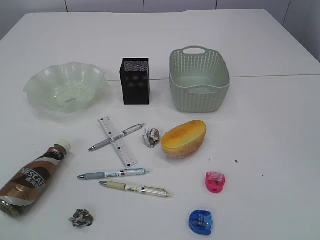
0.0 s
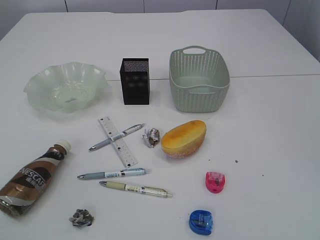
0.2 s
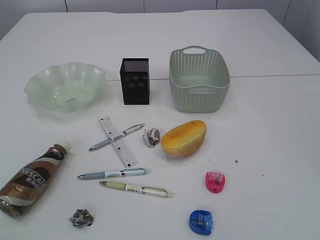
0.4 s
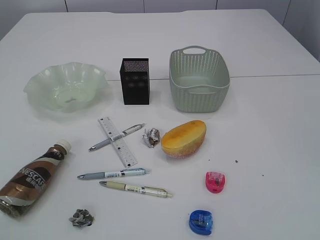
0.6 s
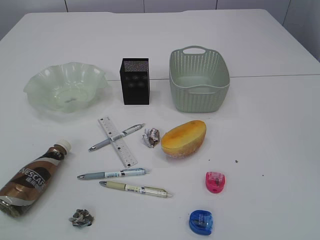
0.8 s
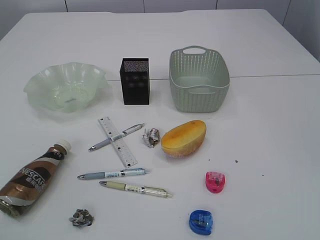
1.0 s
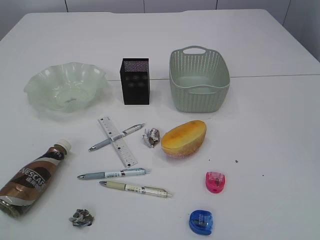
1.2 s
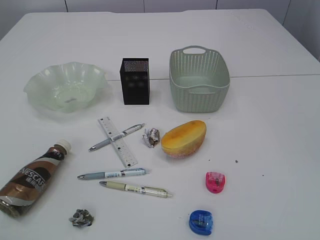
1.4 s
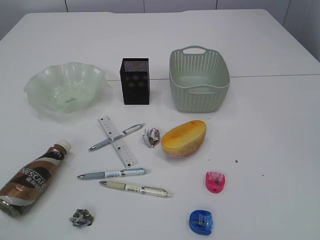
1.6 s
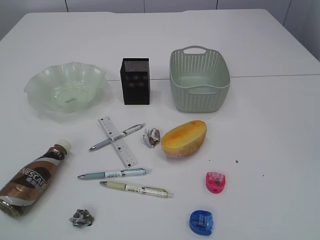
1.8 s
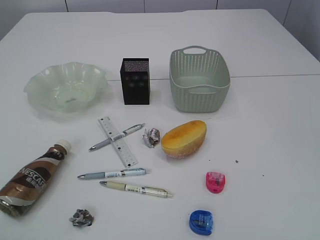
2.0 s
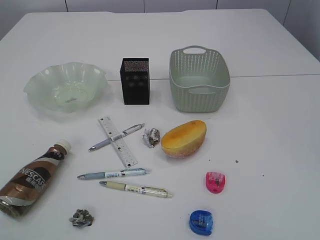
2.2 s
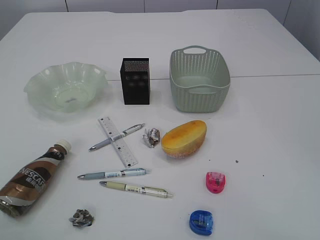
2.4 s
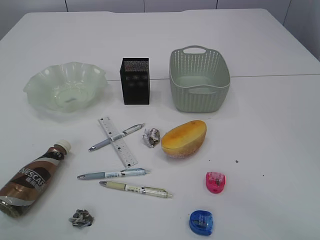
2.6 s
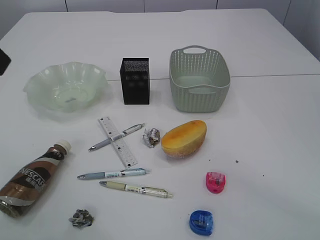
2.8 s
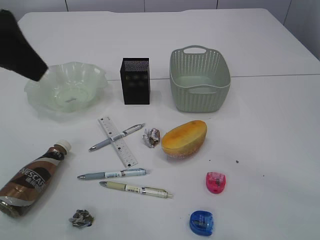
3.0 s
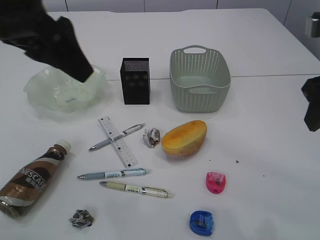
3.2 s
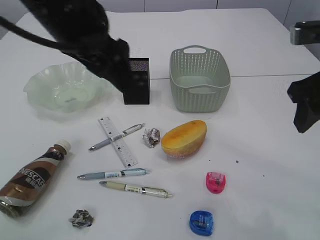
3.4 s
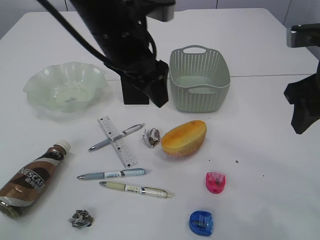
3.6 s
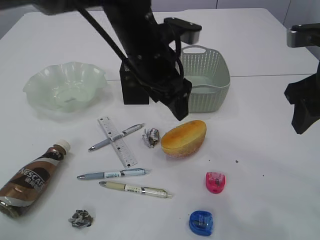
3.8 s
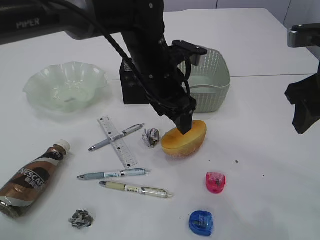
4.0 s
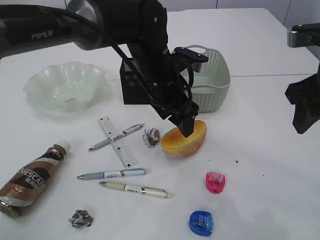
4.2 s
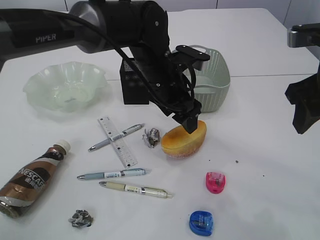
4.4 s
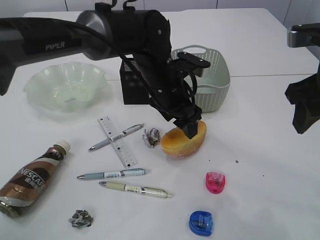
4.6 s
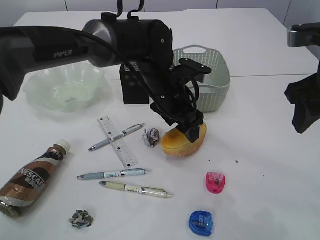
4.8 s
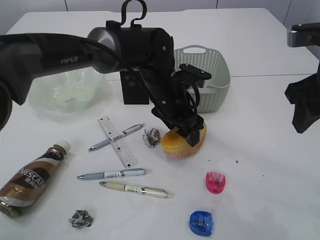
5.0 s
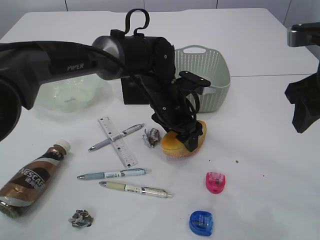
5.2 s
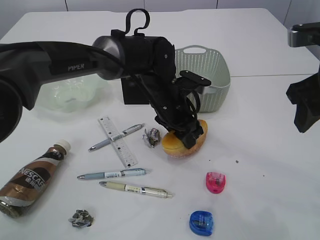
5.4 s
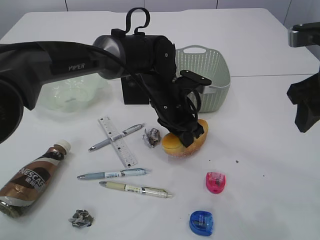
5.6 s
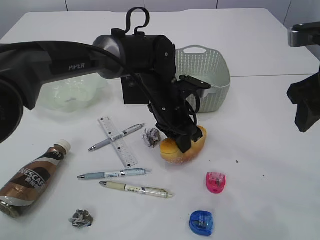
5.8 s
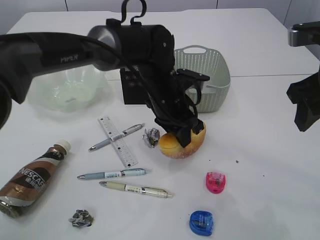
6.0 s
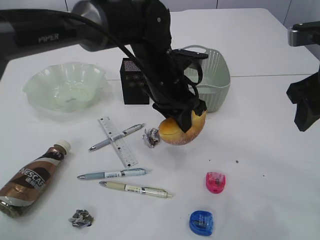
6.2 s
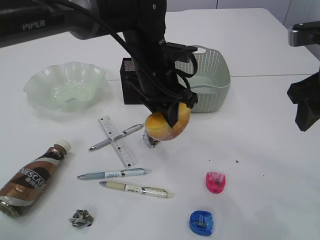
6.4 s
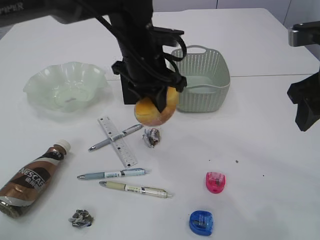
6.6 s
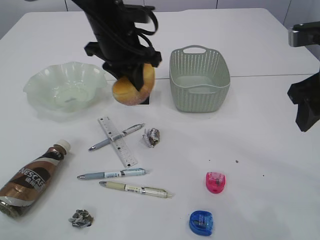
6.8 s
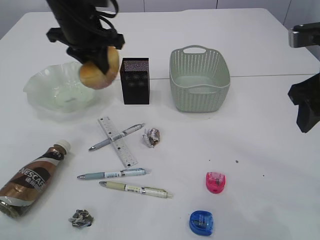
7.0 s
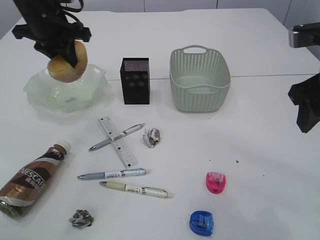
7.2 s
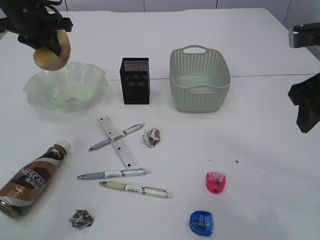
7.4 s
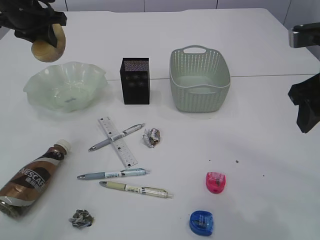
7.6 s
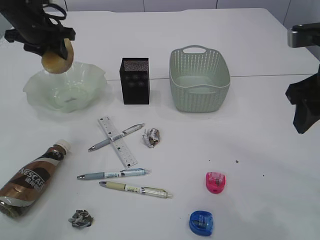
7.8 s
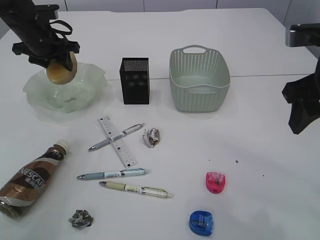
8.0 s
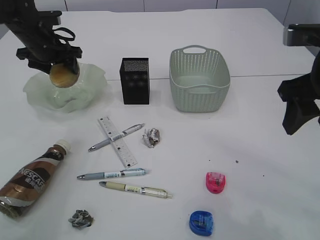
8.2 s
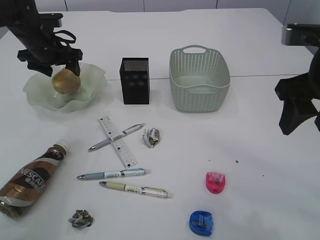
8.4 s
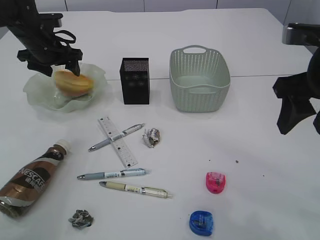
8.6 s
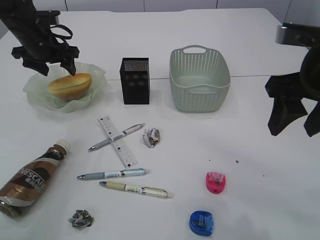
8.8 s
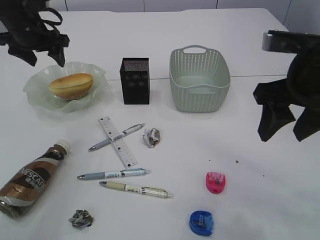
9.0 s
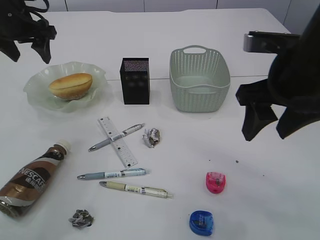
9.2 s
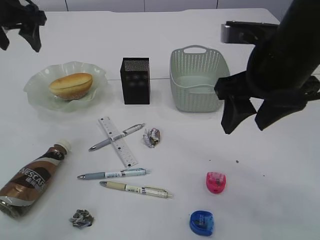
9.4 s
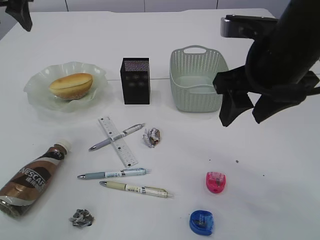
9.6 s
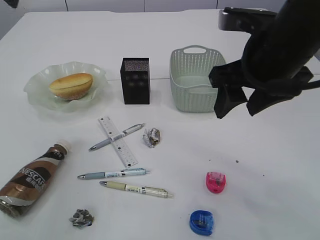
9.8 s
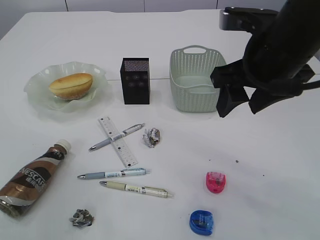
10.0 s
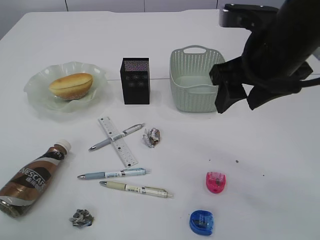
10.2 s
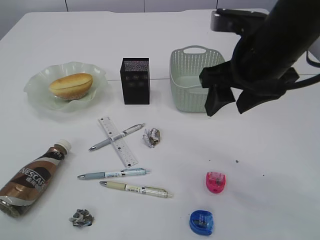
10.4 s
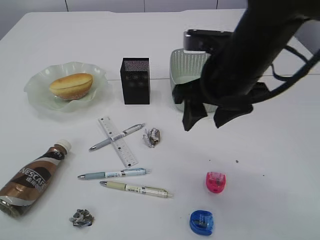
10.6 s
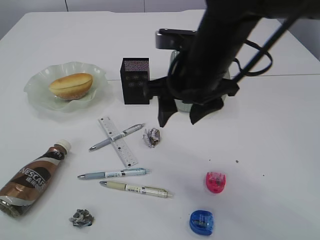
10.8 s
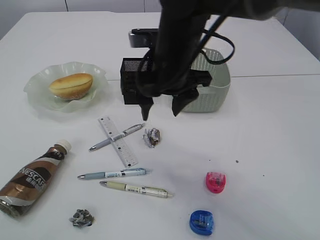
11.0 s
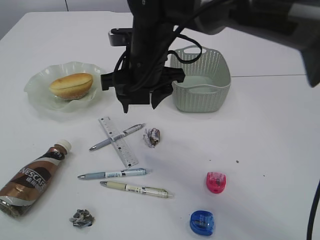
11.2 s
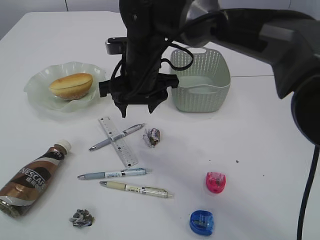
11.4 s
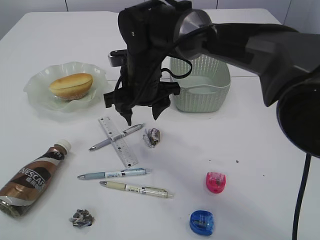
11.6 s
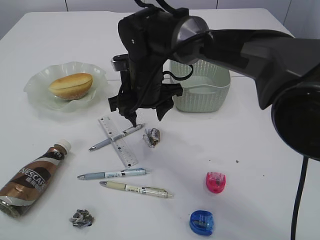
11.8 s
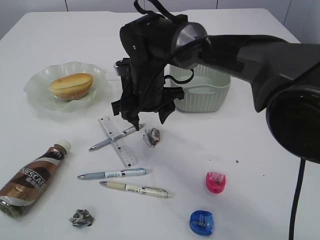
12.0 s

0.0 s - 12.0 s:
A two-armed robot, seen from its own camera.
Step, 6.2 s - 8.8 s: place the bread in the plate.
1.6 s - 3.0 s: The left gripper moves forward and to the right, roughly 25 cm.
3.0 s - 4.4 s: The right gripper heads forward, covering approximately 5 cm; the left gripper shifts some 30 cm to the right, downward and forward.
4.4 s - 6.0 s: The left gripper closes its fingers.
6.0 s - 7.6 s: The left gripper goes about 30 cm to the left and upward.
7.6 s - 9.0 s: The left gripper opens up.
9.0 s - 10.4 s: The right gripper shifts roughly 5 cm to the left; the left gripper moves backward and upward, approximately 35 cm.
10.4 s - 12.0 s: The left gripper is displaced backward by roughly 10 cm, while the right gripper goes approximately 20 cm to the left, downward and forward.

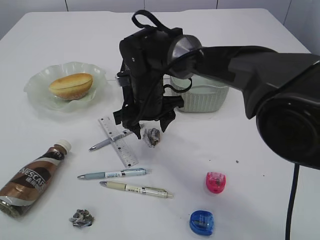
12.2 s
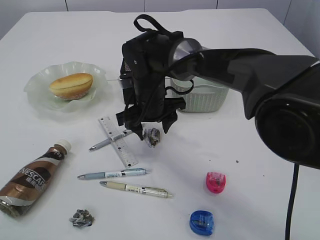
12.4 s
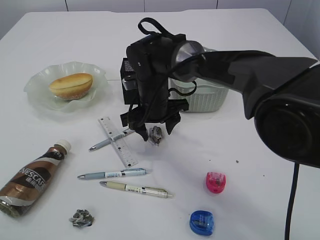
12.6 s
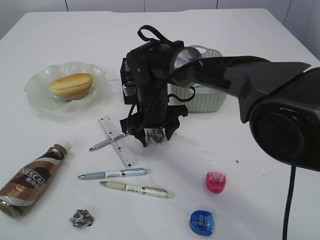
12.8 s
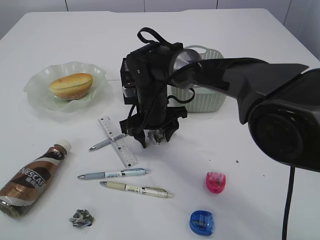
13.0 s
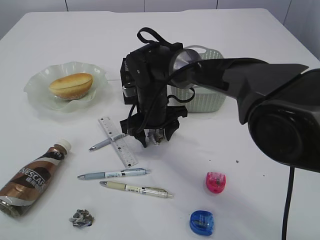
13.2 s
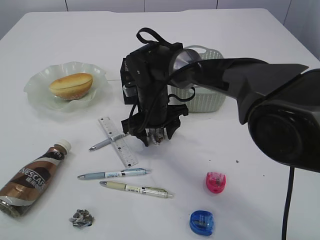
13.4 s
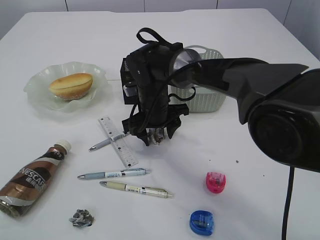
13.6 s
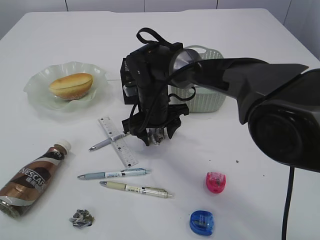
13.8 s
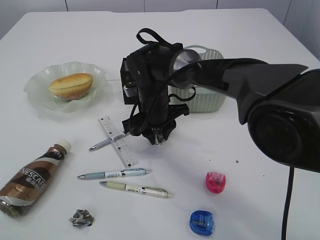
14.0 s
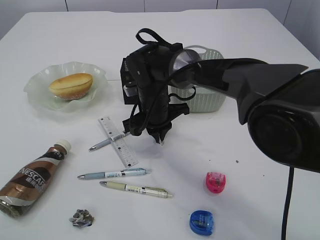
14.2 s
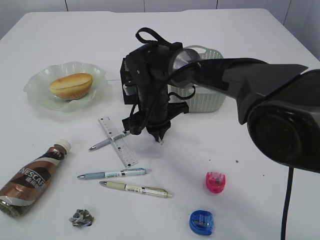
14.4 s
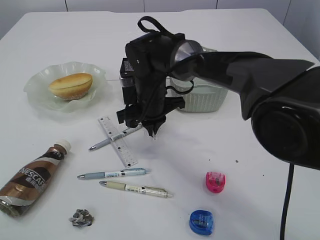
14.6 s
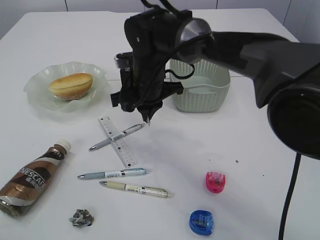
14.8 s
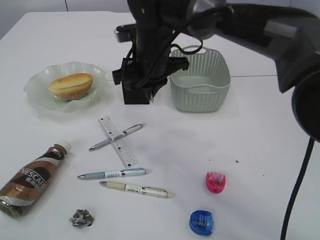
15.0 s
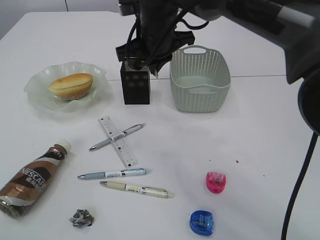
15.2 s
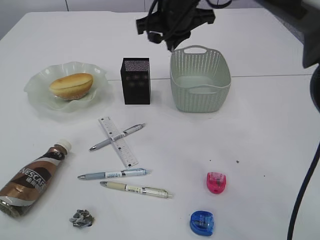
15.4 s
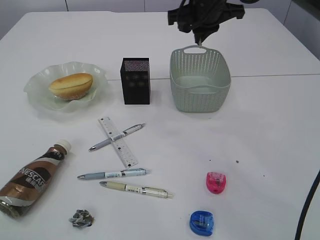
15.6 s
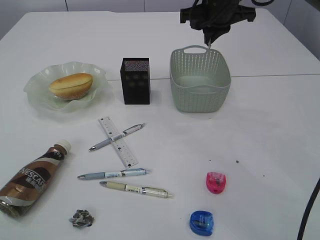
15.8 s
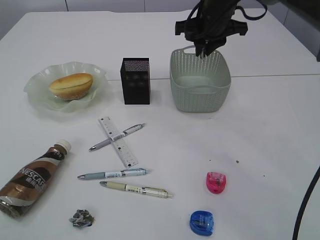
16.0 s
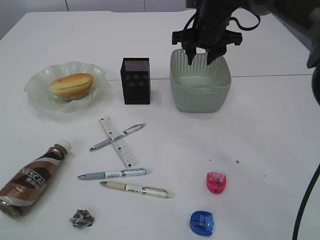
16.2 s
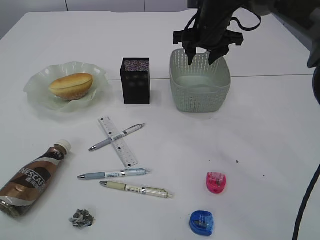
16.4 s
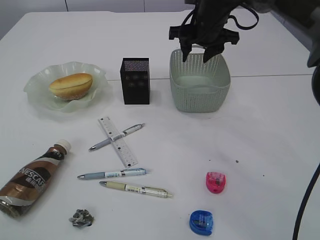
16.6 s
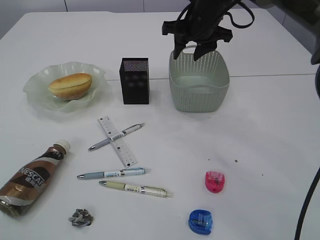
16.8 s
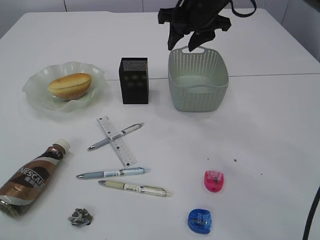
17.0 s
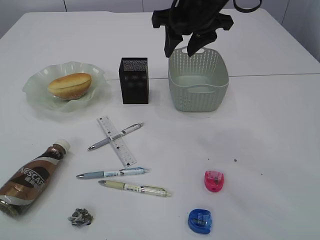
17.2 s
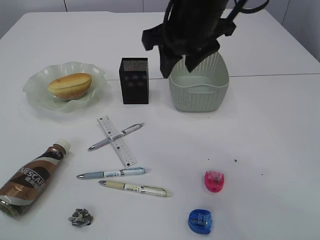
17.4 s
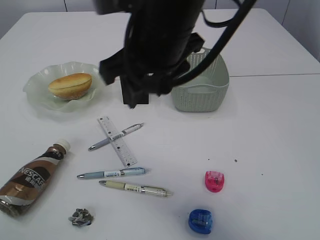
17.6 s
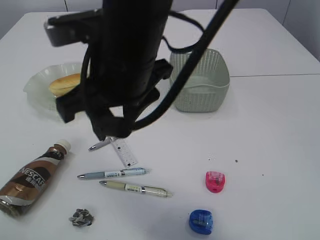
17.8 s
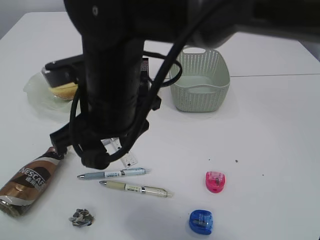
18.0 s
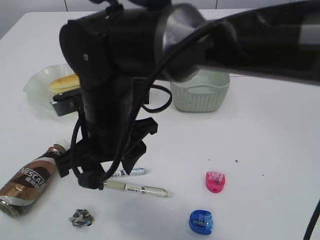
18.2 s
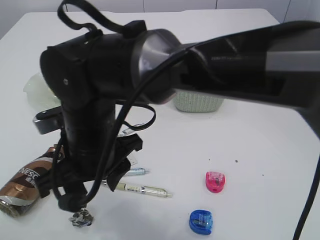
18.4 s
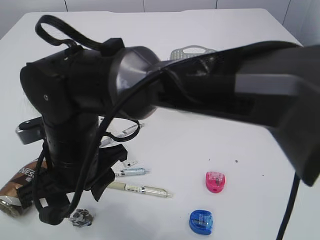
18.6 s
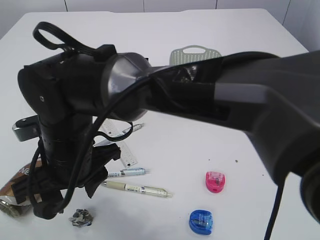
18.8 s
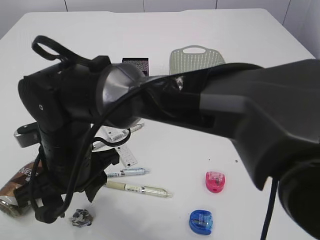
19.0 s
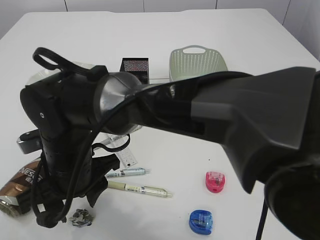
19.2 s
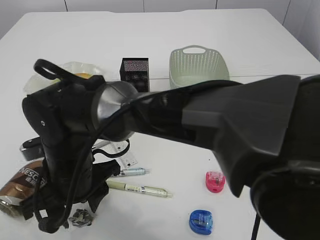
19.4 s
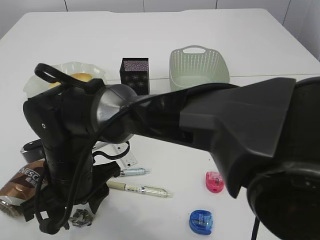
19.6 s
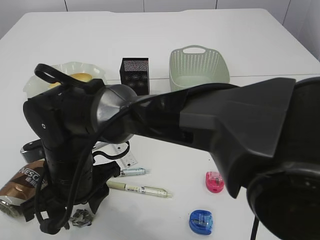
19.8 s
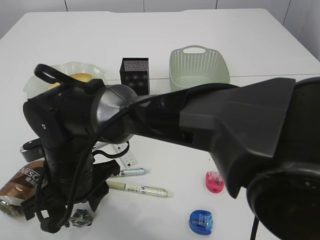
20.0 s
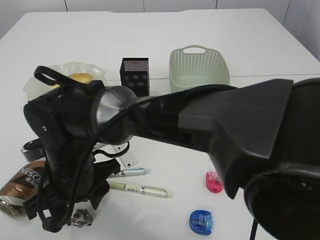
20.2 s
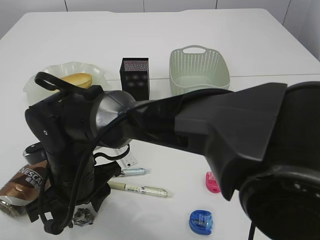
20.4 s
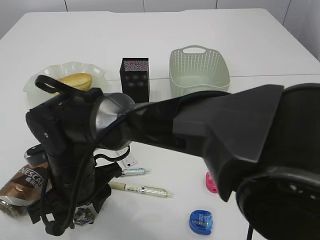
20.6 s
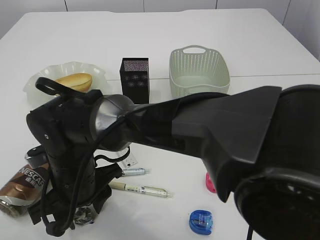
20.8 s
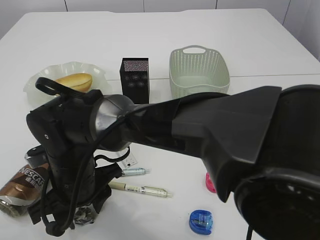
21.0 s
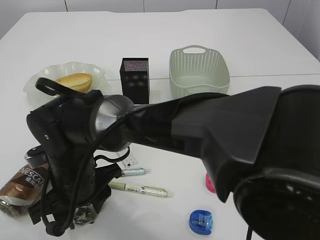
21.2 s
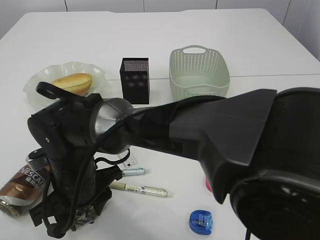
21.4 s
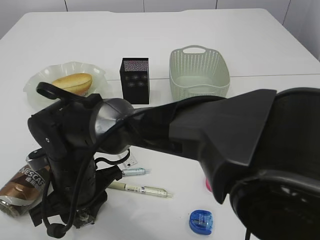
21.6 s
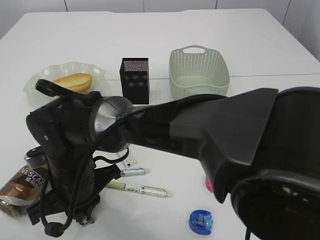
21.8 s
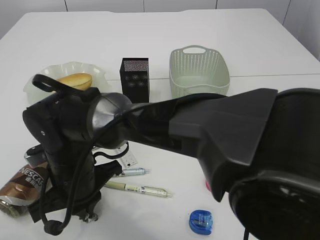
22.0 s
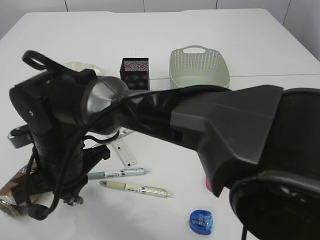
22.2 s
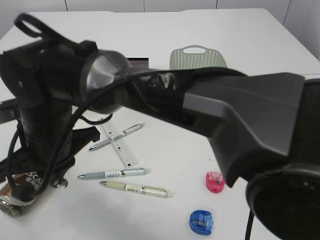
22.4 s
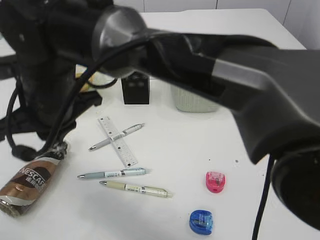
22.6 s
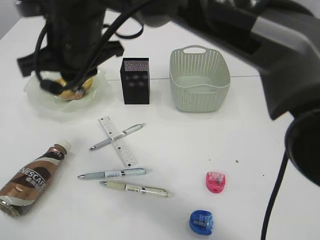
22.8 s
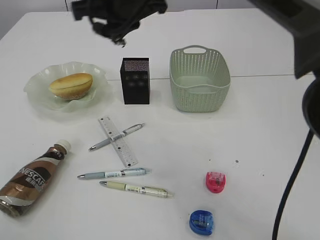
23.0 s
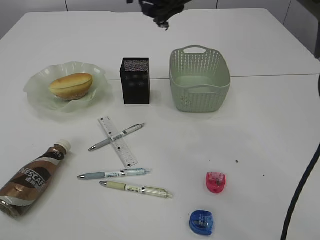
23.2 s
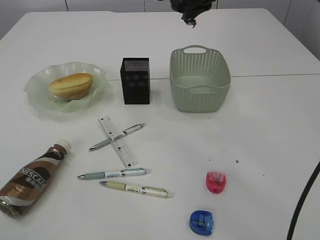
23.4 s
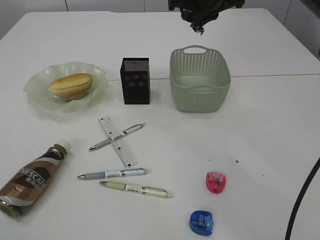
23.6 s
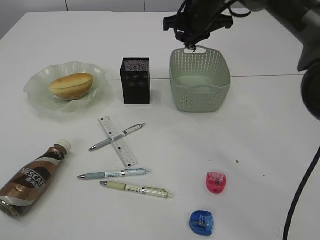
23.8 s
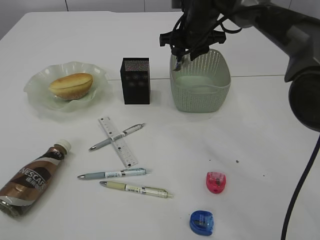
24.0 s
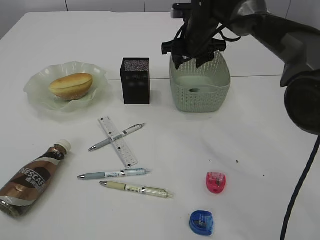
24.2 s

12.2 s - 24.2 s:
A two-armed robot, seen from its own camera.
Step, 12.2 s - 14.6 s: Pick up the waste paper.
Step, 14.8 s - 16.2 s: Place the waste paper in the basket.
Step, 16.4 s - 22.0 s: Pick up the plastic.
12.2 s - 13.8 s: The grippers move only a little.
13.8 s - 15.2 s: The right gripper shifts roughly 15 cm upward, and closes.
15.2 s - 16.6 s: The right gripper moves to the right and forward, approximately 10 cm, and opens its fingers.
16.6 s - 18.2 s: The right gripper goes about 30 cm backward and to the left.
18.2 s - 19.8 s: The right gripper goes about 10 cm downward and to the left.
19.8 s - 21.2 s: The grippers make only small movements.
21.2 s - 22.6 s: The right gripper goes about 10 cm upward, and closes up.
22.6 s - 24.2 s: The right gripper heads to the right and forward, covering roughly 30 cm, and opens its fingers.
